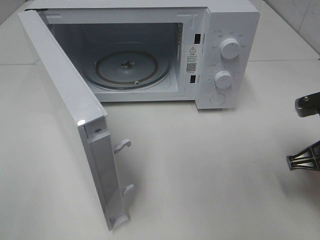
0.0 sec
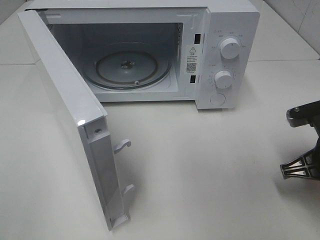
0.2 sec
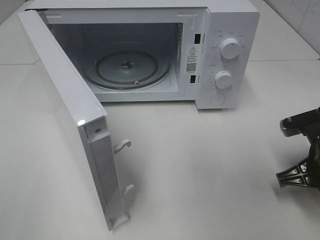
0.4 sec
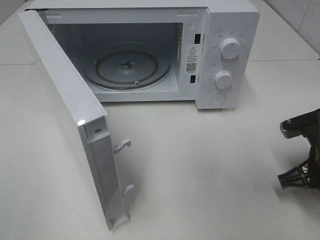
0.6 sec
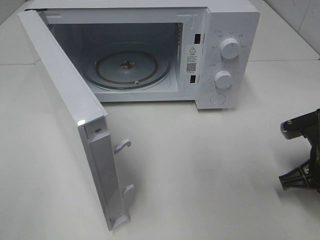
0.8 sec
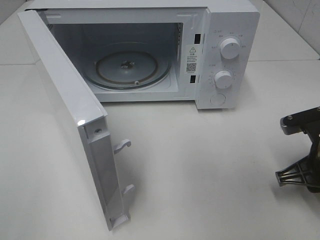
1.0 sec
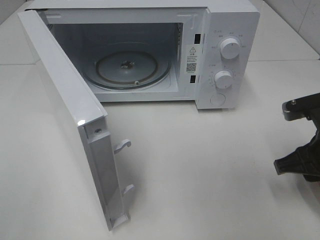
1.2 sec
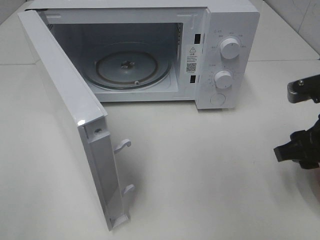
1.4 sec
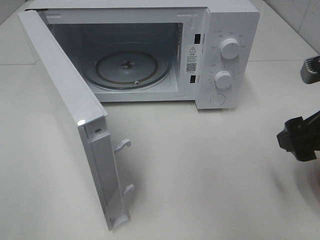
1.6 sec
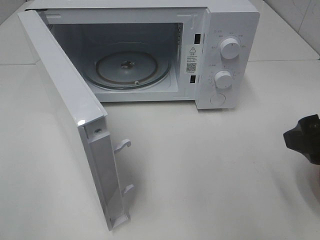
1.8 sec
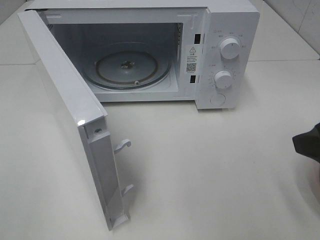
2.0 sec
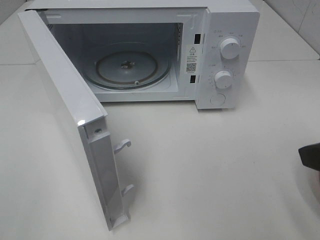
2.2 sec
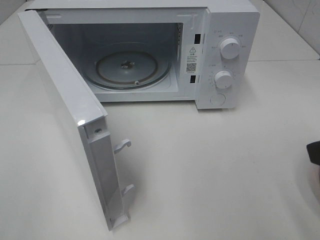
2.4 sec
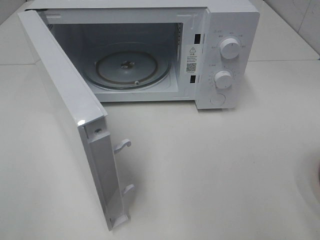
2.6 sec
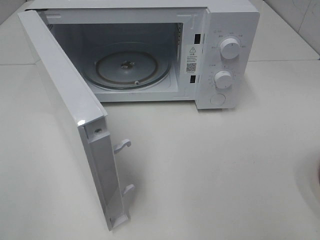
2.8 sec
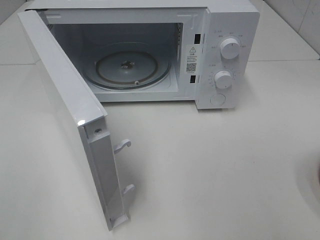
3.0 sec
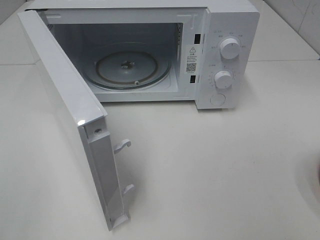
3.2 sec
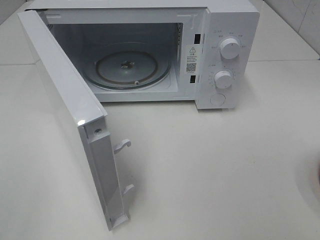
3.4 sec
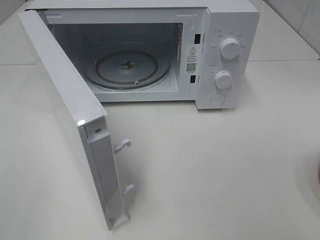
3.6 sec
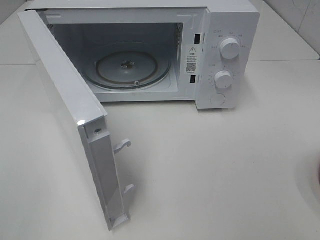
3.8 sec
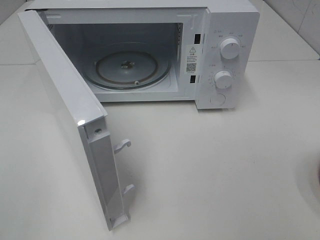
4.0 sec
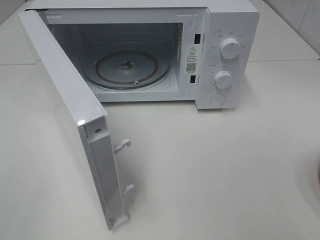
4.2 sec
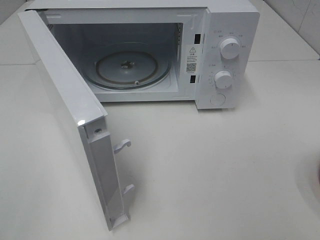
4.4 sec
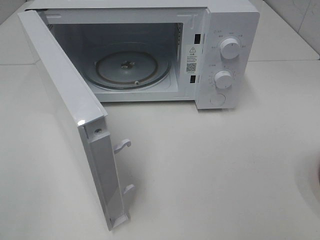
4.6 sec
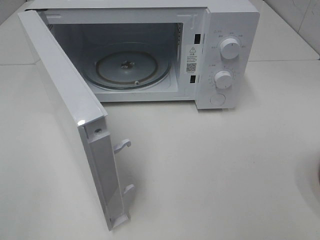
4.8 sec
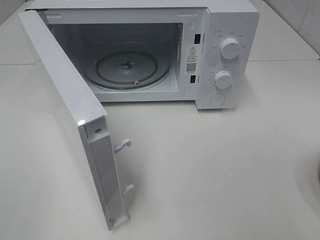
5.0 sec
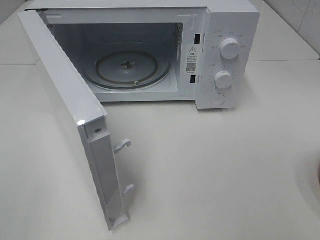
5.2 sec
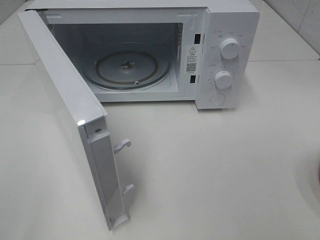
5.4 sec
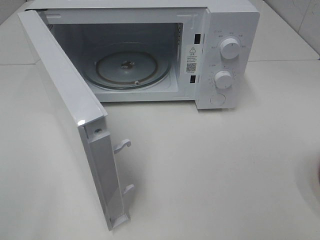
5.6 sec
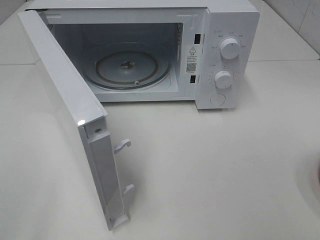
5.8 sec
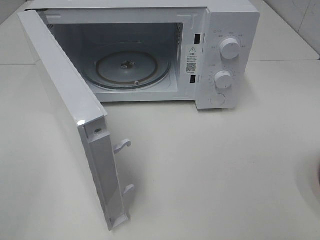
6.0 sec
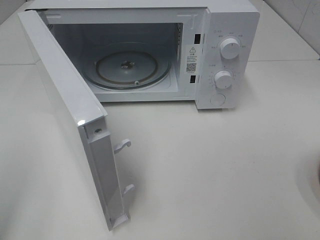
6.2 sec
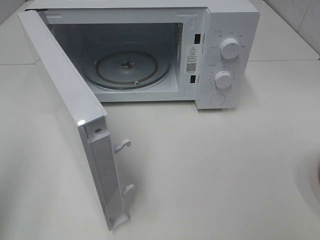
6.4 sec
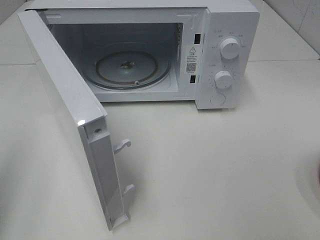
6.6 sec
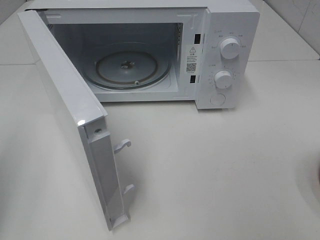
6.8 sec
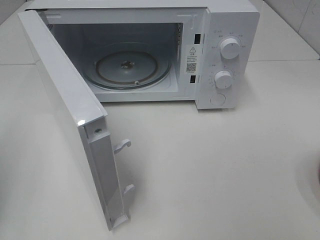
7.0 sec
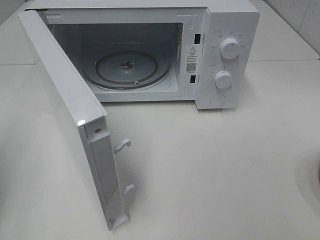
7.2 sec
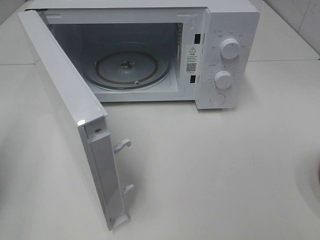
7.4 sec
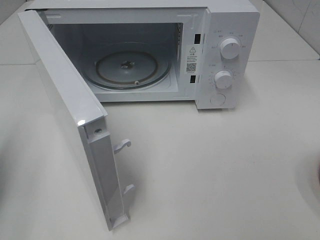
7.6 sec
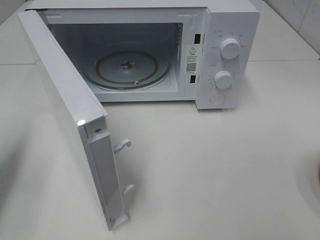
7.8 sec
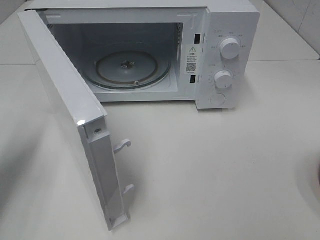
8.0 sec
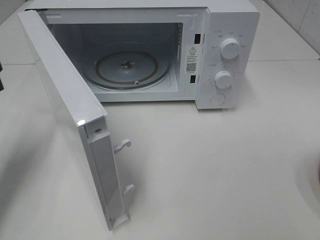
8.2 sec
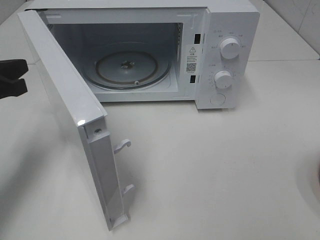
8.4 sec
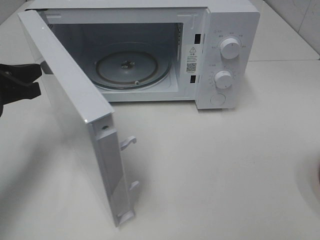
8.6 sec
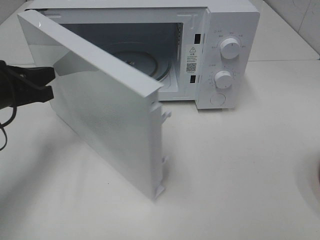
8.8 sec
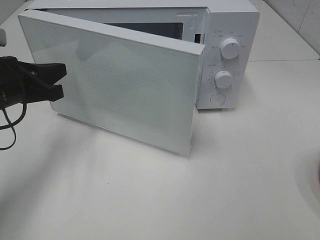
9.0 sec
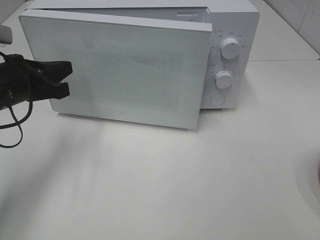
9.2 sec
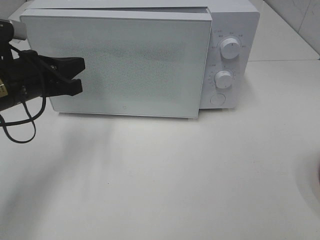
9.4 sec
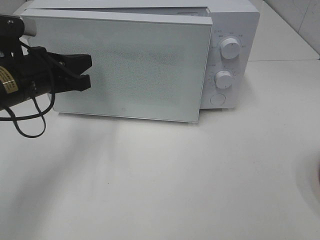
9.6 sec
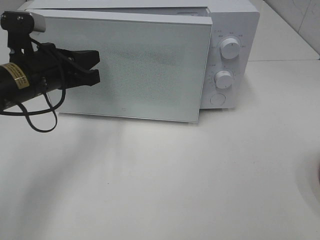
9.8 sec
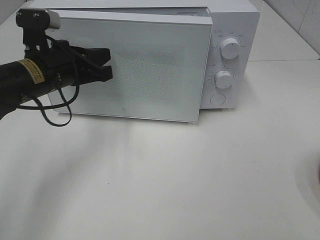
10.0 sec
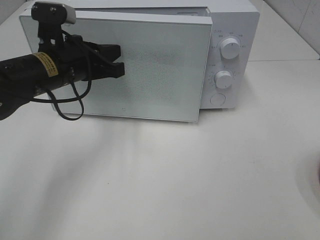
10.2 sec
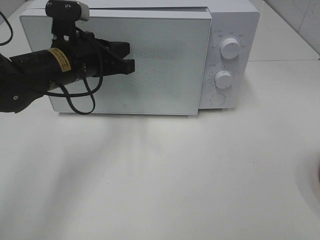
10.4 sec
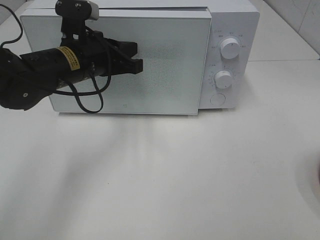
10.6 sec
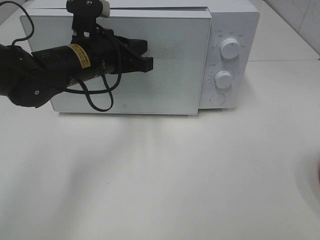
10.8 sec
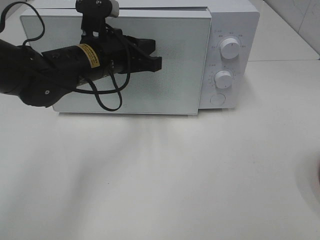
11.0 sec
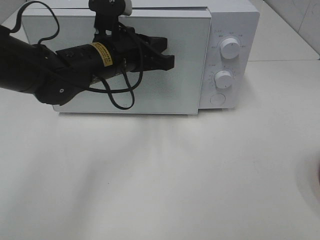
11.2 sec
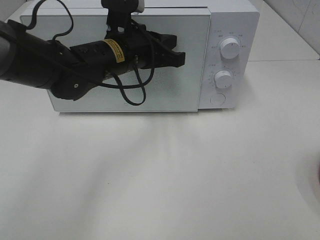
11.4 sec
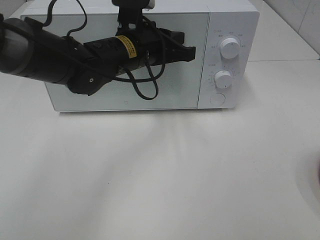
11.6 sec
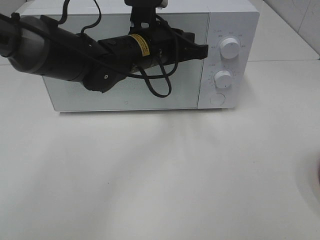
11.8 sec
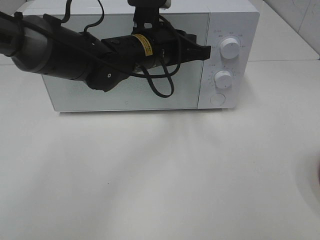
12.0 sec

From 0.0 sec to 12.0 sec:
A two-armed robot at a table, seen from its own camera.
Task of the whole recording: Heat the burger.
Step, from 1.0 sec to 11.6 sec: Left hand: close the microwave door.
From 0.0 sec to 1.6 sec: The right gripper is displaced upward by about 10 cm, and opens.
From 1.6 sec to 3.0 sec: The right gripper goes about 20 cm backward and upward.
From 6.0 sec to 7.6 sec: The left gripper is displaced forward and downward by about 20 cm, and closes up.
From 7.6 sec to 9.0 sec: The left gripper goes approximately 15 cm to the right and forward.
From 9.0 sec to 10.4 sec: The left gripper travels to the right and forward by approximately 10 cm.
From 10.4 sec to 12.0 sec: The left gripper is displaced to the right by some 10 cm.

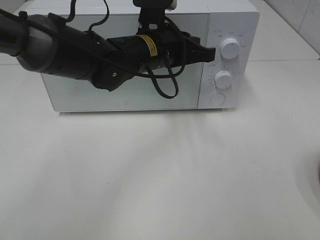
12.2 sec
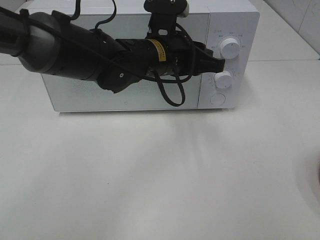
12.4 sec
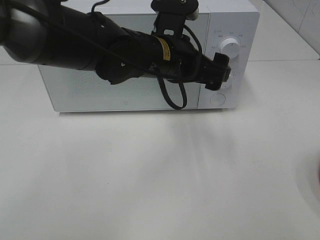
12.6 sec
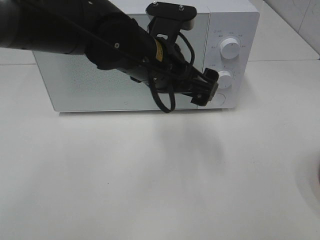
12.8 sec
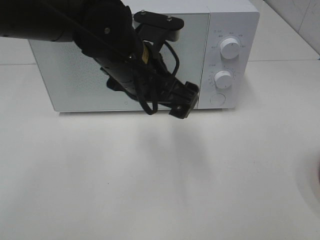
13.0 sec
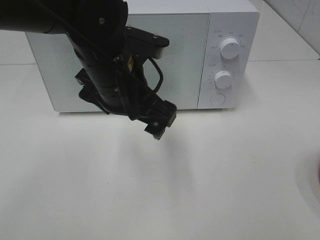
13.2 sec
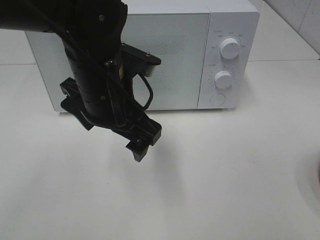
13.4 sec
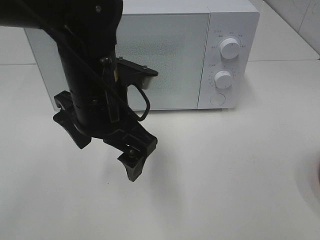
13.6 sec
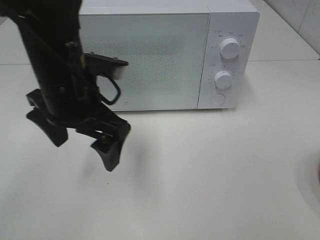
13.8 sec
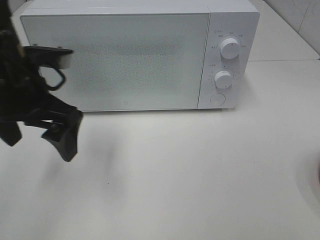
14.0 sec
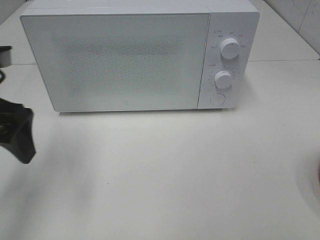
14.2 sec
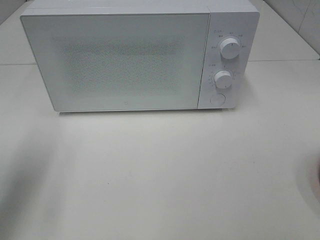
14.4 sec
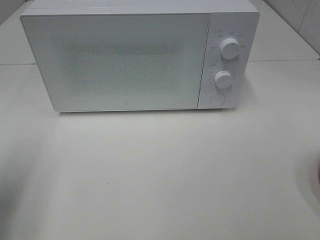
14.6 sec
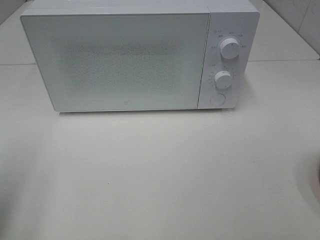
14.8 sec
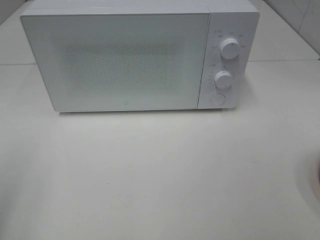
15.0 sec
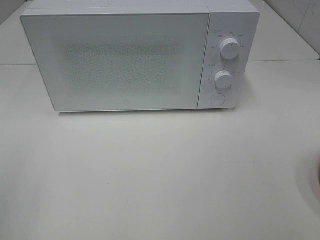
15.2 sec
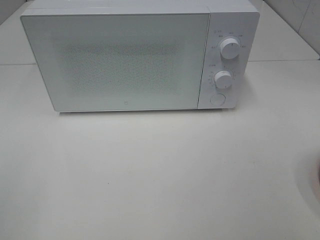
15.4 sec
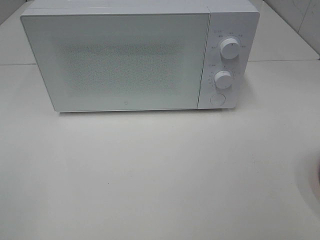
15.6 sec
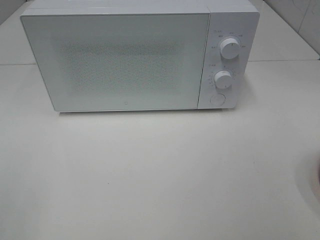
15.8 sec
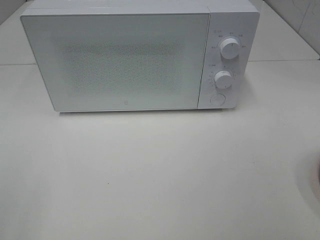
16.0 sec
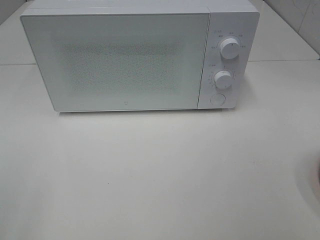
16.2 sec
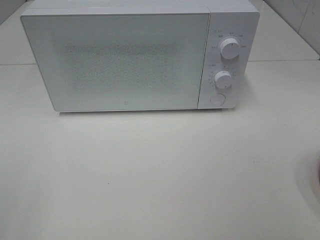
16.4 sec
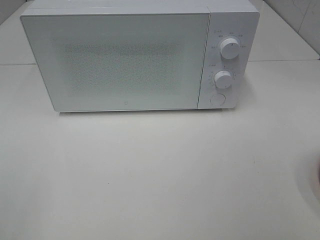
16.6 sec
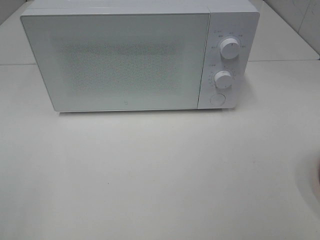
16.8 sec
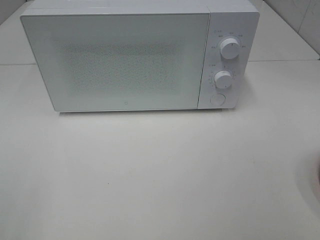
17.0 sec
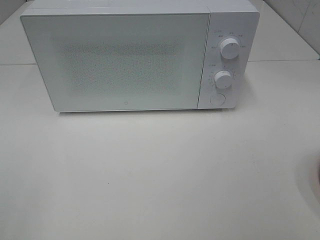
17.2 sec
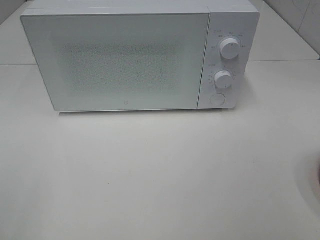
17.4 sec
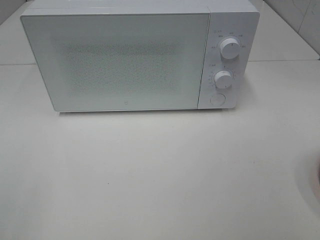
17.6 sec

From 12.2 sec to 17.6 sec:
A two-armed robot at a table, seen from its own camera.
Task of the whole recording: Heat the burger.
From 12.2 sec to 13.6 sec: The left gripper shifts approximately 15 cm backward and to the left, and opens its fingers.
From 13.6 sec to 15.0 sec: The left gripper is displaced to the left and backward by approximately 30 cm.

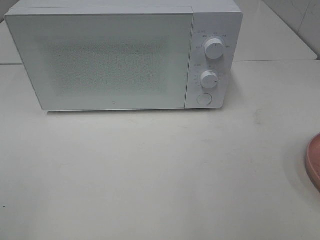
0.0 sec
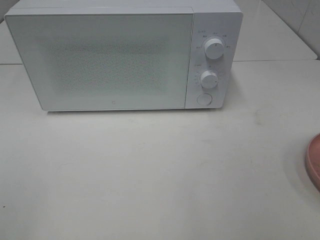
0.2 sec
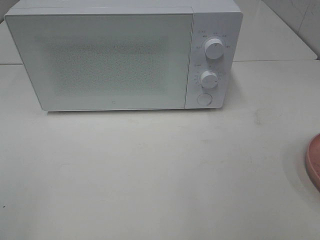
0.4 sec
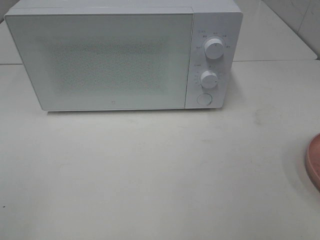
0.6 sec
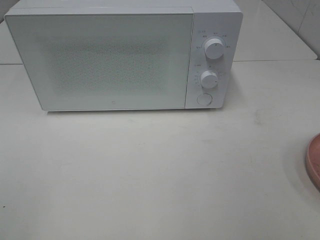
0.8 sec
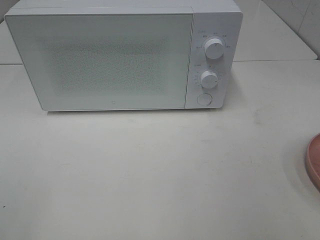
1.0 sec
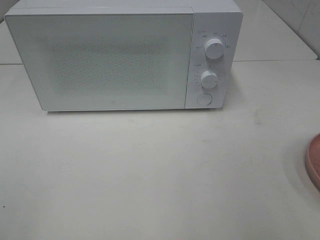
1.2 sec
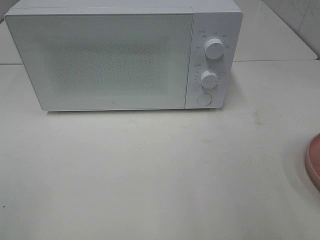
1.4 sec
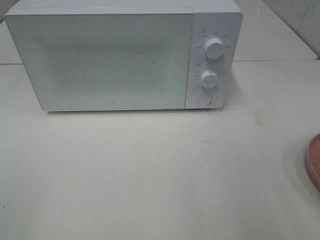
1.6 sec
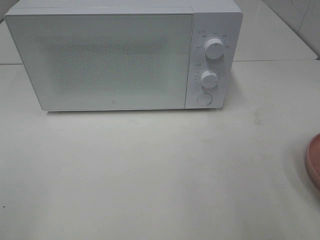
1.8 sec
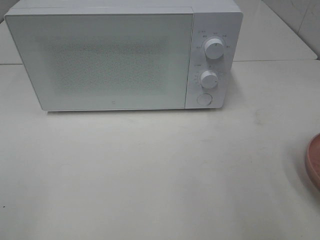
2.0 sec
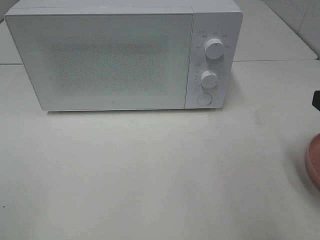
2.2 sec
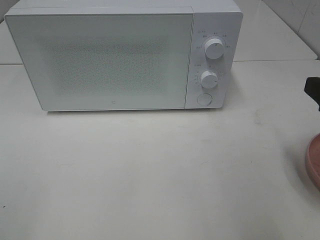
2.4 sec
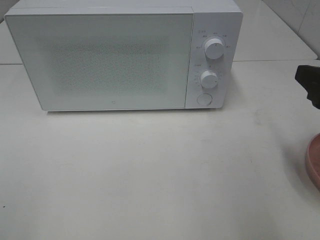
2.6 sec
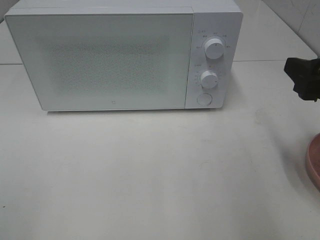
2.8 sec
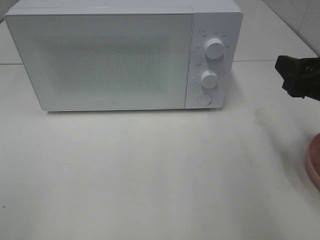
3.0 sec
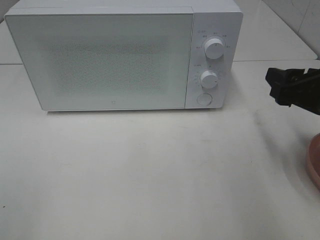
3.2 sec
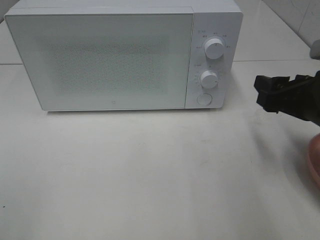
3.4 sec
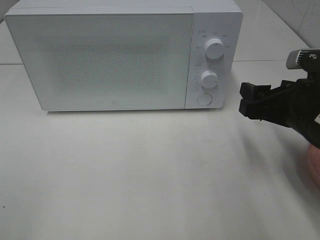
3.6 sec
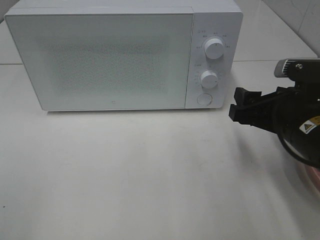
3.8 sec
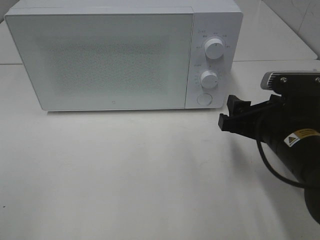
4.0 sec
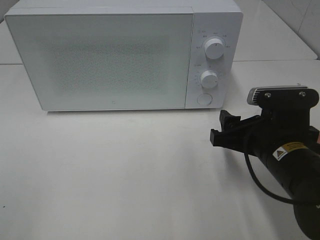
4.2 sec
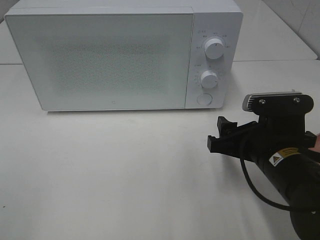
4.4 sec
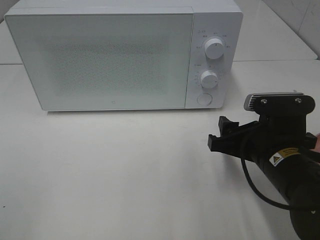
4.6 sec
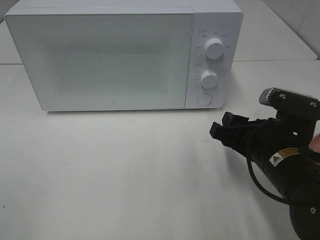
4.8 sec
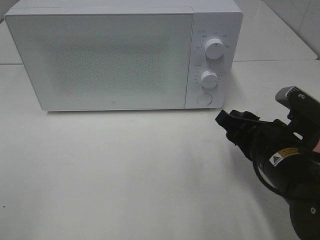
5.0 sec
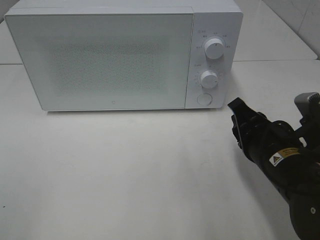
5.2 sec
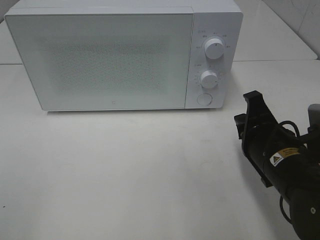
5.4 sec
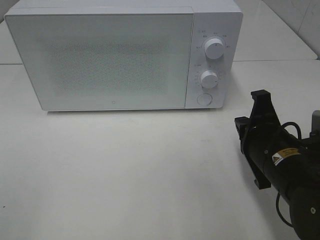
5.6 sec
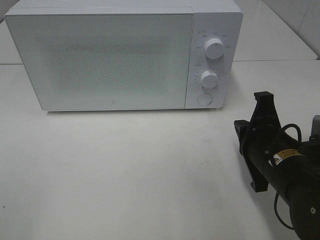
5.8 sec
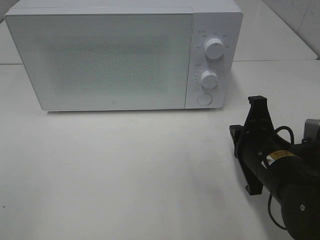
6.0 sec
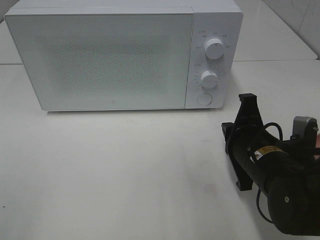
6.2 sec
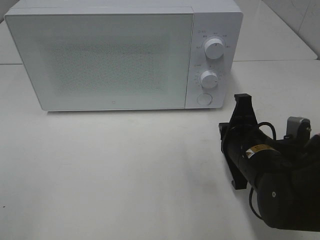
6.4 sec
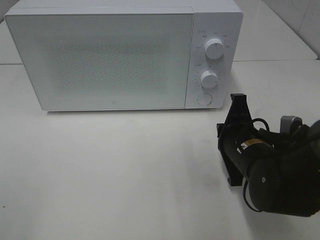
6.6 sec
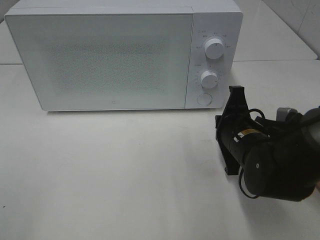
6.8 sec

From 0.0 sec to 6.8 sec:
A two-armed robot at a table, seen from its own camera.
Task of the whole recording: Heat the burger.
From 1.4 sec to 2.8 sec: The right gripper shifts some 10 cm forward.
From 2.8 sec to 4.0 sec: The right gripper is displaced downward and to the left by roughly 10 cm.
From 4.0 sec to 5.4 sec: The right gripper closes its fingers.
From 5.4 sec to 6.8 sec: The right gripper goes some 5 cm forward.
